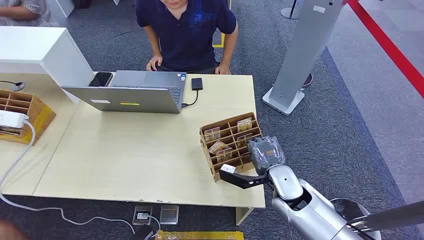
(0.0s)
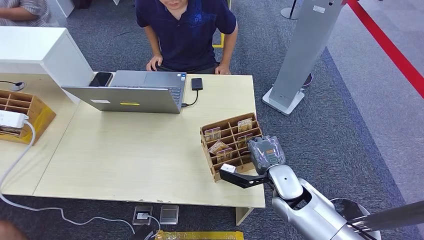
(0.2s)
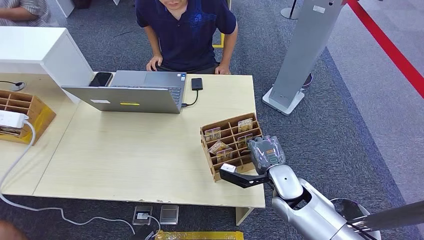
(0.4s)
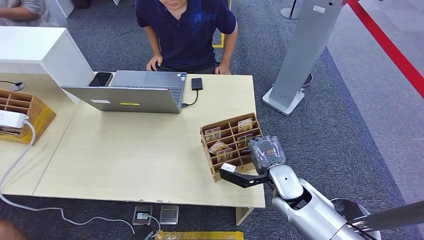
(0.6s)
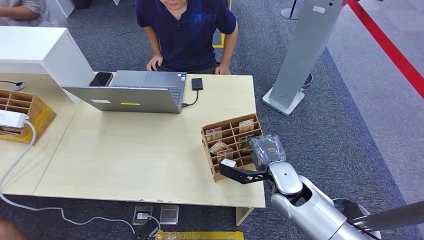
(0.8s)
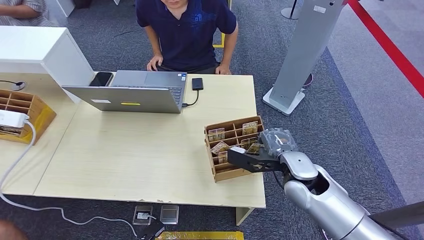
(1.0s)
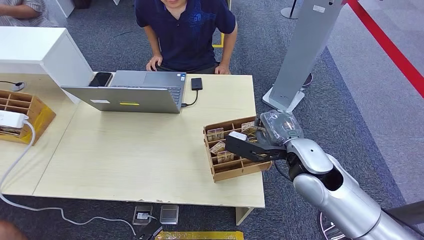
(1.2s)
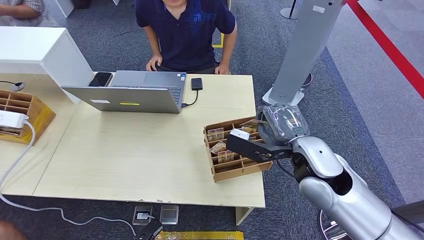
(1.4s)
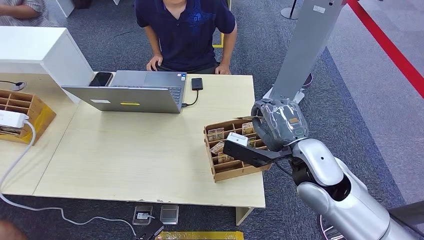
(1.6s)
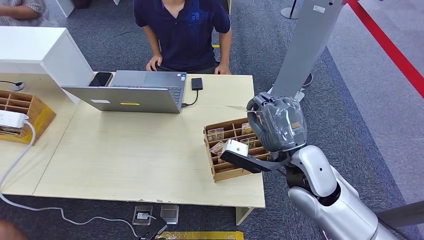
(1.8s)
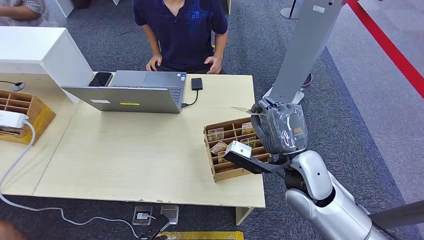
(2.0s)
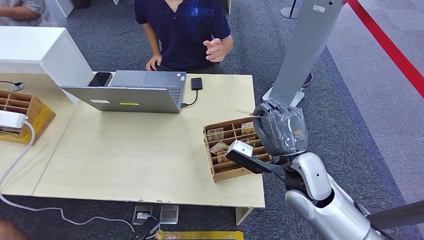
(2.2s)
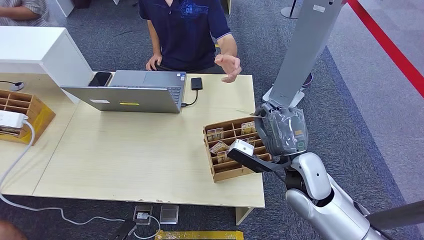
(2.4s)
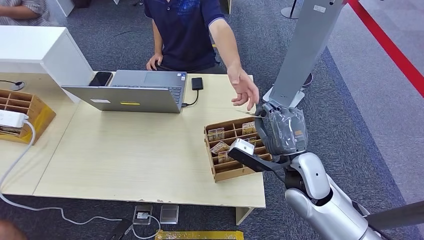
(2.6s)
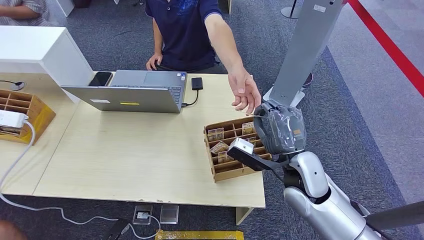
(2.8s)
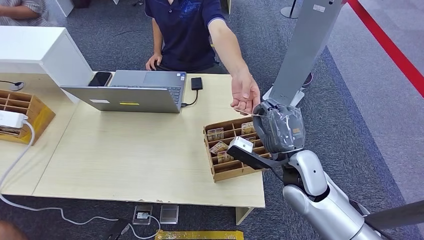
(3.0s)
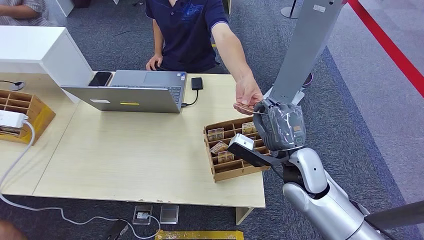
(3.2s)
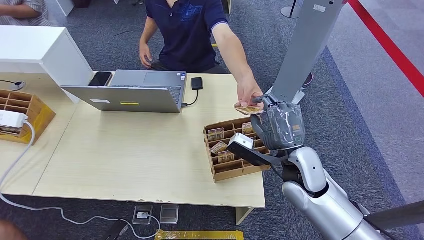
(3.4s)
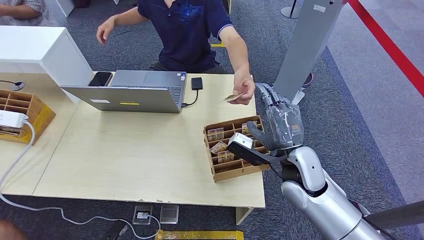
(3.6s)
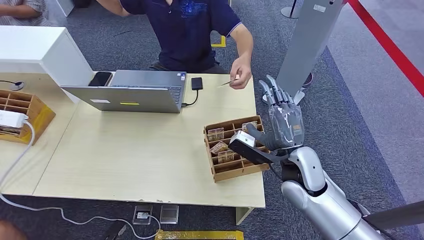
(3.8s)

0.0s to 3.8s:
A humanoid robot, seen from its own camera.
Step, 0.0s to 1.2s: Pick up the room card from the card holder.
Step, 1.8s to 3.6s: Hand the room card to the target.
1.2s to 2.6s: The left hand shifts roughly 10 cm to the left.
2.6s to 3.8s: The hands make only small movements.
